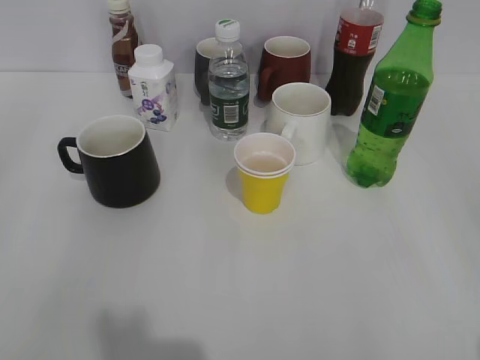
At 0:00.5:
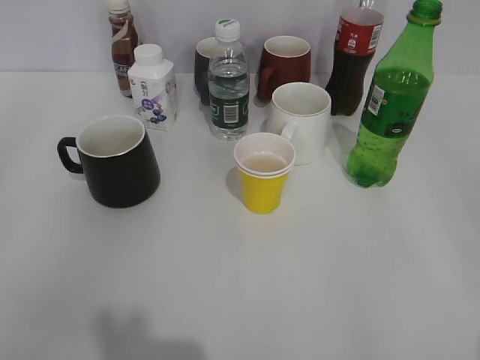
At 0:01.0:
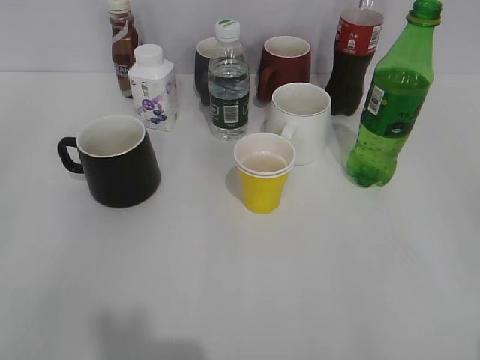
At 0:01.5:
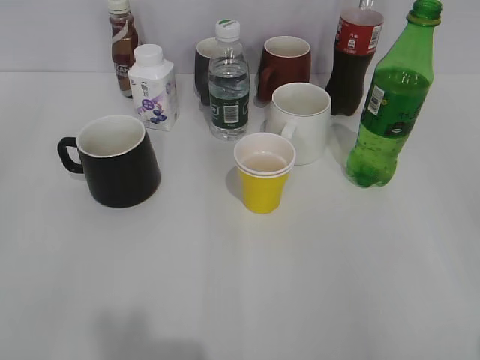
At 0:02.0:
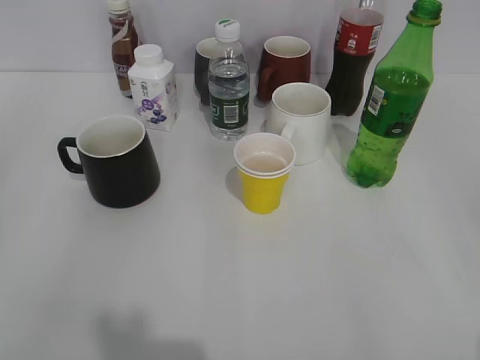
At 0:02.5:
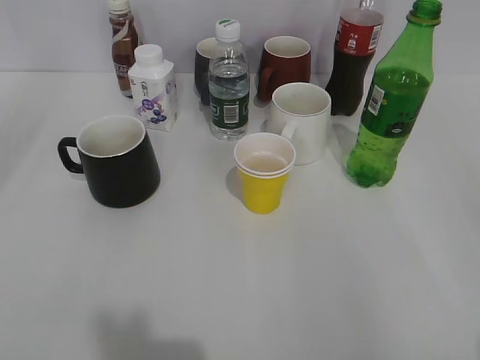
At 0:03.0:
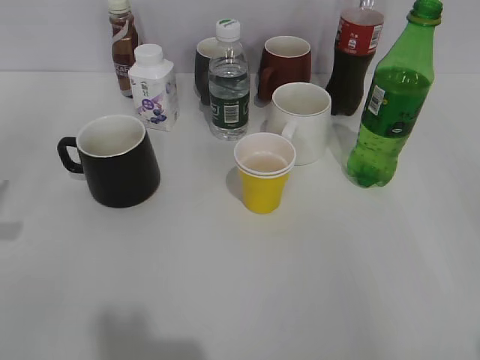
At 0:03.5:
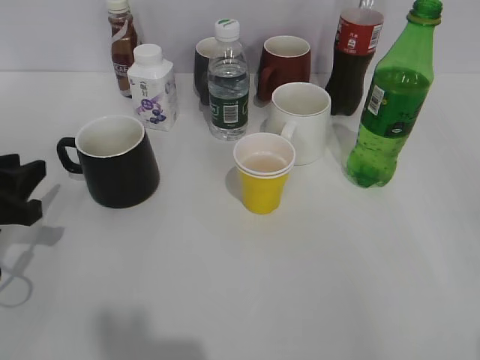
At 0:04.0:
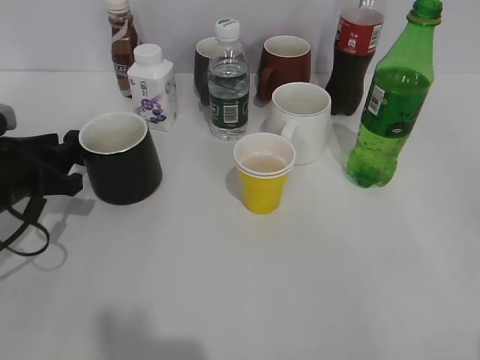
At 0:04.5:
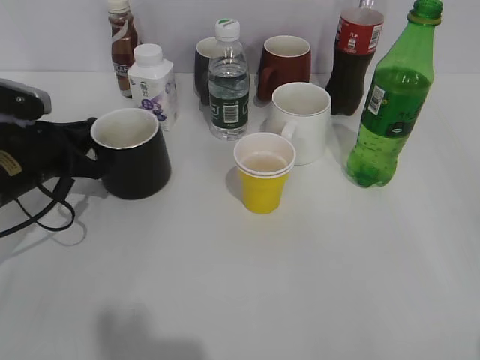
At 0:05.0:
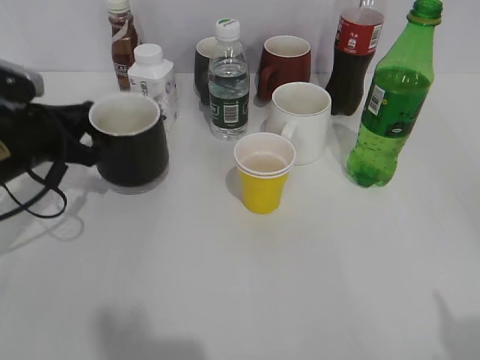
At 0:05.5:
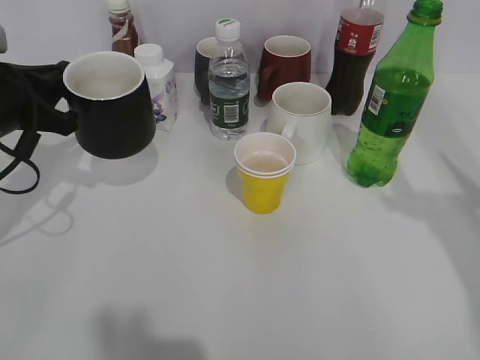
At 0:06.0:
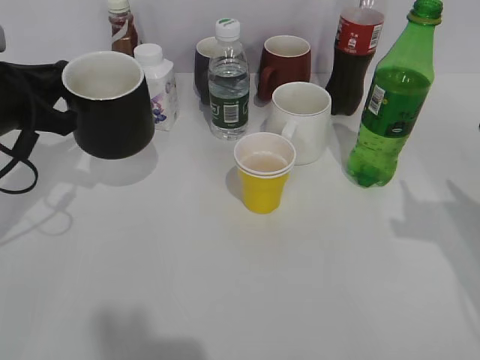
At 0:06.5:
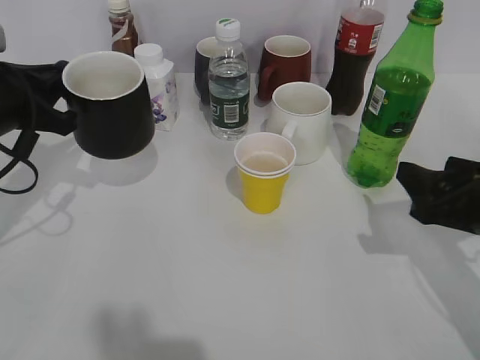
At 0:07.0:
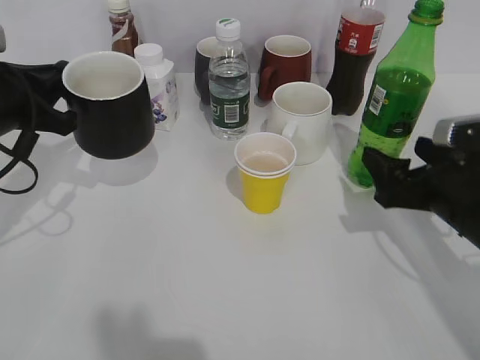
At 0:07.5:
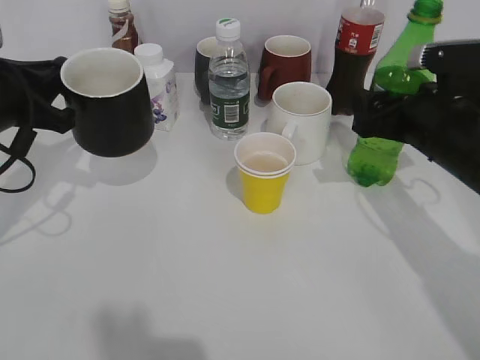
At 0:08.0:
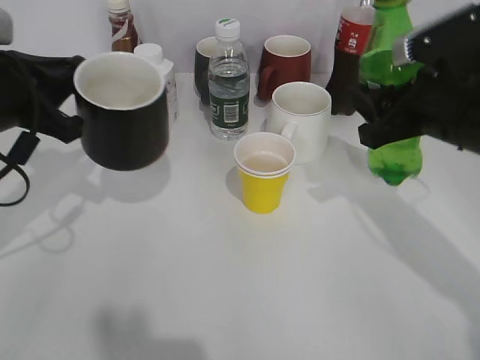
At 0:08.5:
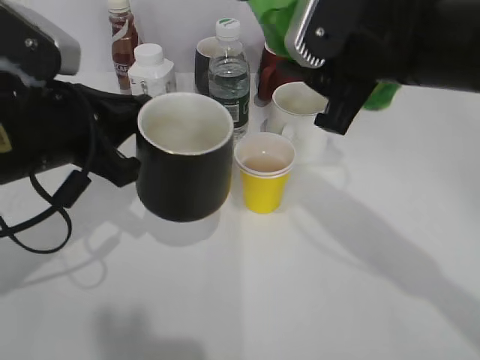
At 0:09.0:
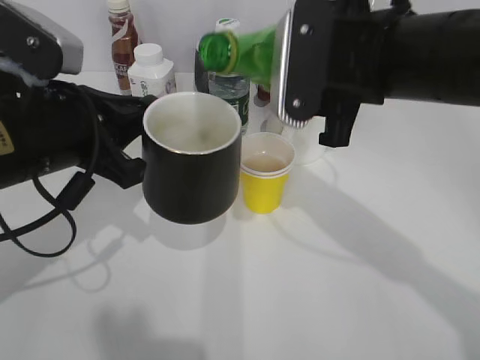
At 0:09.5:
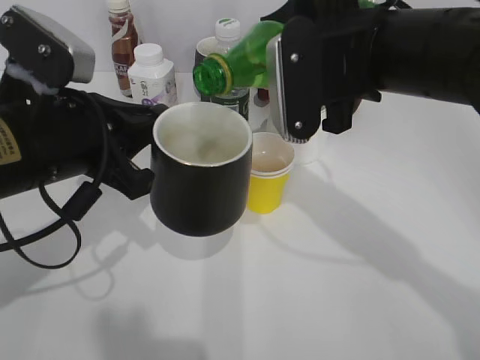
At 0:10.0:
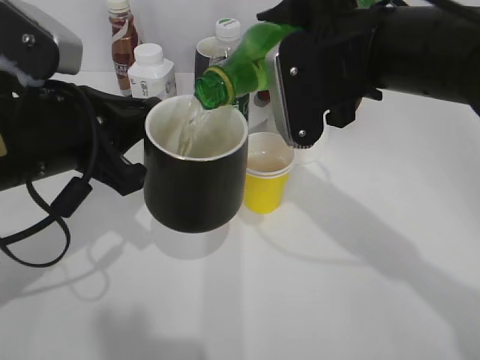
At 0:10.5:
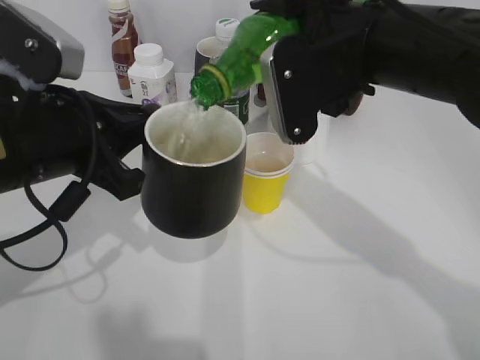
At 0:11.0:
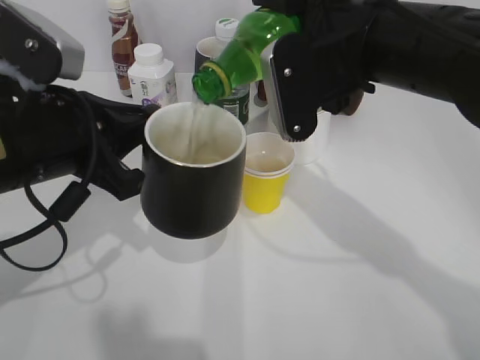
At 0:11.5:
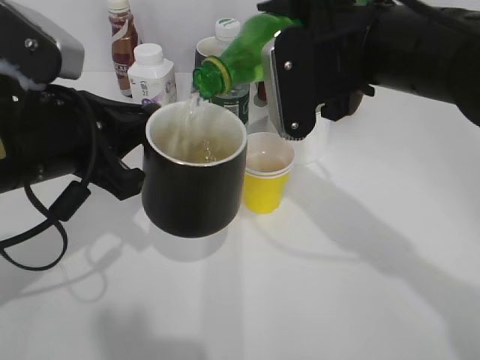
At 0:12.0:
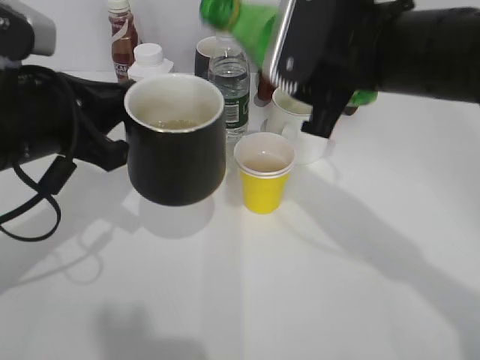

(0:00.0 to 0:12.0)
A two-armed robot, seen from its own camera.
Step, 0:02.0 - 0:04.5: Grasp the black cup with left gripper.
Step, 0:05.0 - 0:05.5: Lift the black cup with left gripper.
Step, 0:06.0 - 0:07.5: Grasp the bottle with sprite with right gripper.
Step, 0:08.0 - 0:11.5: Pour the sprite from bottle to cup with right gripper.
0:02.0 - 0:04.0: The left gripper travels forward and downward by about 30 cm.
0:04.0 - 0:06.0: The left gripper heads upward, covering approximately 10 cm, and closes its fingers.
0:06.0 - 0:08.0: The right gripper heads forward and to the left, covering some 15 cm, and closes.
0:08.0 - 0:10.0: The right gripper moves to the left and upward, roughly 10 cm; the left gripper heads to the right and backward, covering roughly 10 cm.

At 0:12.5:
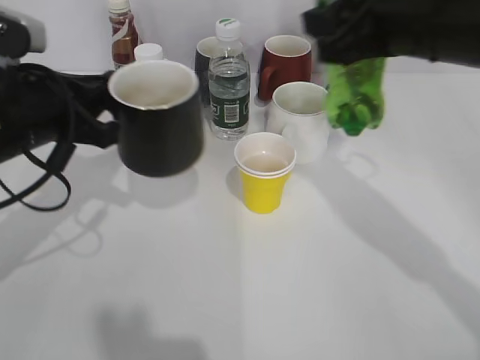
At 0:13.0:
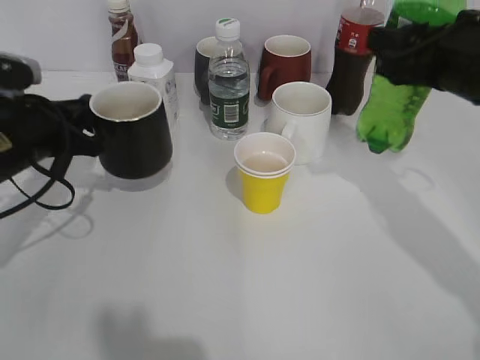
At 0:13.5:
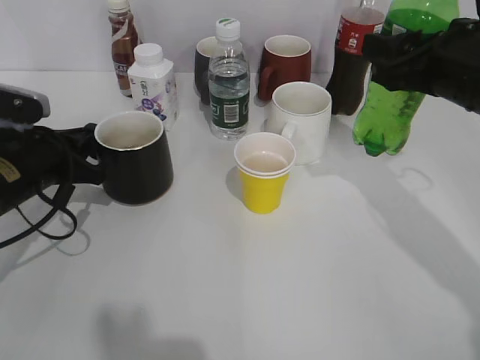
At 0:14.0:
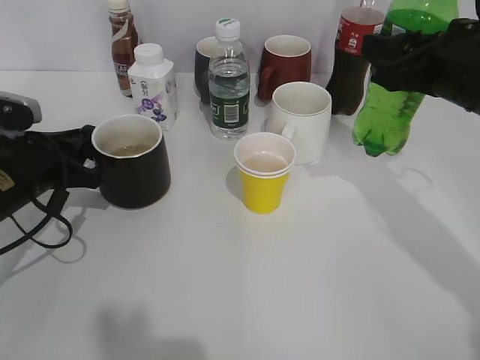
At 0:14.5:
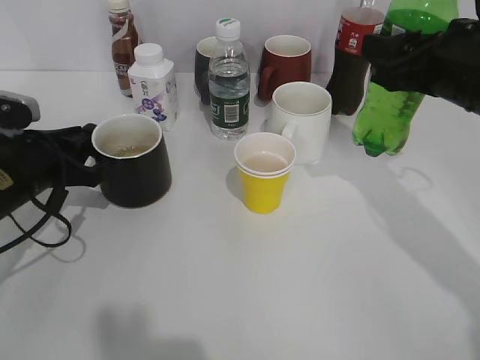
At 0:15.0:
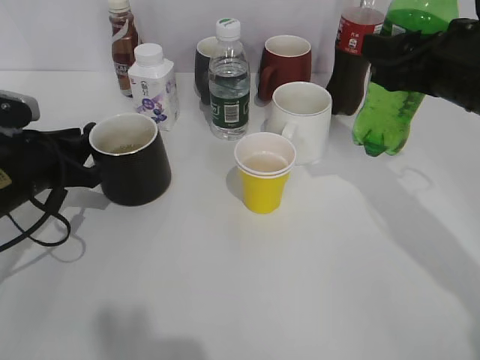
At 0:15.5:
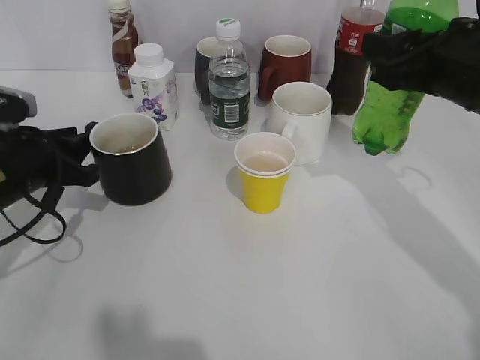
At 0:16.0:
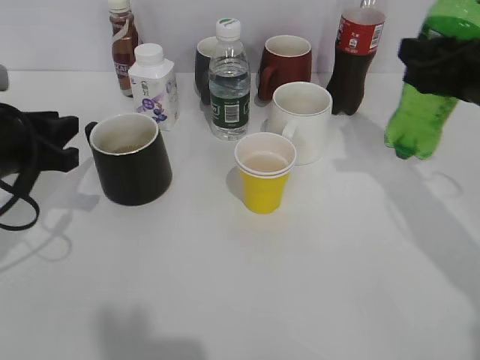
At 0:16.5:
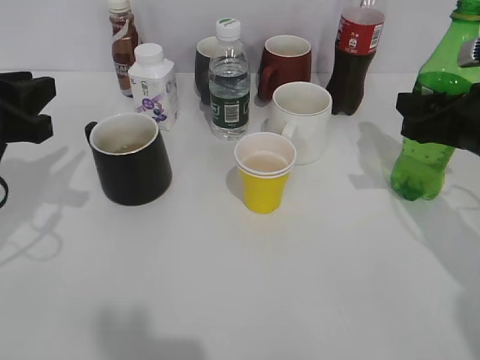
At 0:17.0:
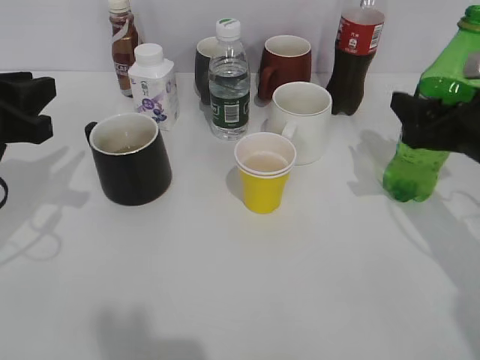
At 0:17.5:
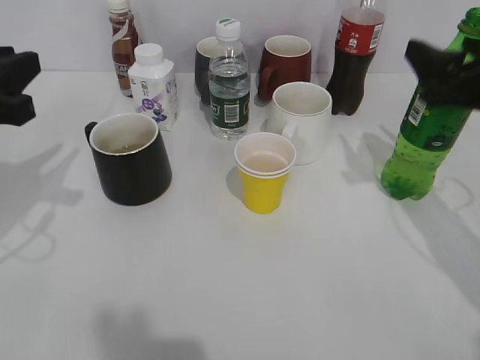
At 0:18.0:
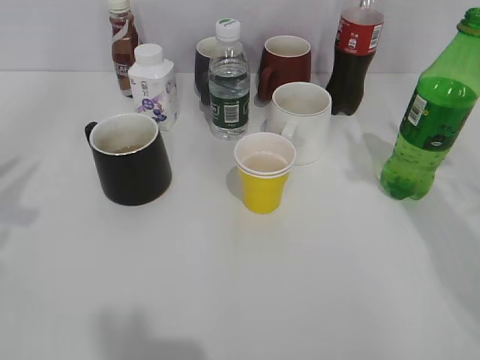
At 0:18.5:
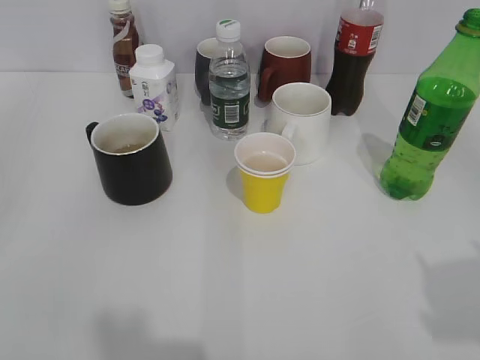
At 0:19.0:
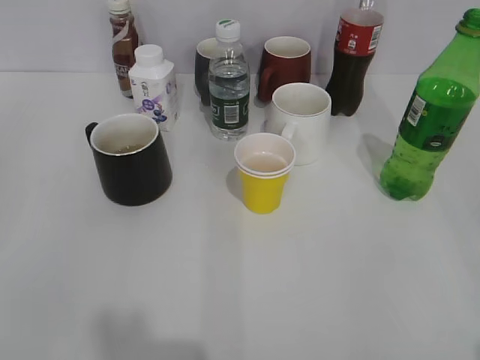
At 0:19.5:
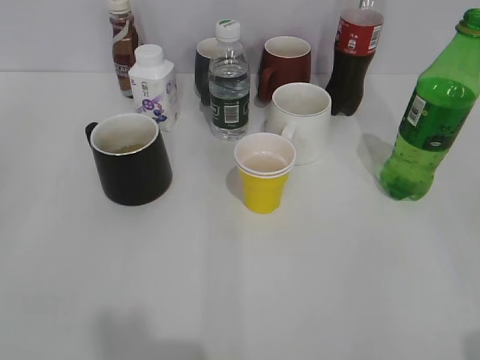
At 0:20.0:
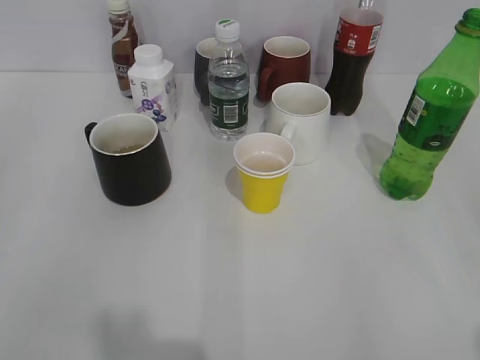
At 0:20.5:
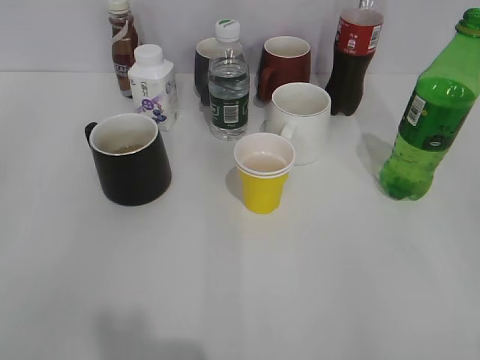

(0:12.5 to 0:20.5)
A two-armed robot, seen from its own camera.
Step, 0:12.5 - 0:15.0: Place the black cup on the table with left gripper.
Step, 0:15.5 - 0:17.0: Place the sprite bottle on the table with right gripper.
0:12.5 - 0:14.5: The right gripper heads to the right and downward, covering approximately 10 cm; the left gripper travels downward by approximately 10 cm.
0:14.5 - 0:16.5: The right gripper travels downward by roughly 5 cm, while the left gripper heads upward, covering approximately 10 cm.
0:16.5 - 0:18.5: The right gripper moves backward and upward, roughly 30 cm, and opens; the left gripper shifts about 25 cm backward, and opens its fingers.

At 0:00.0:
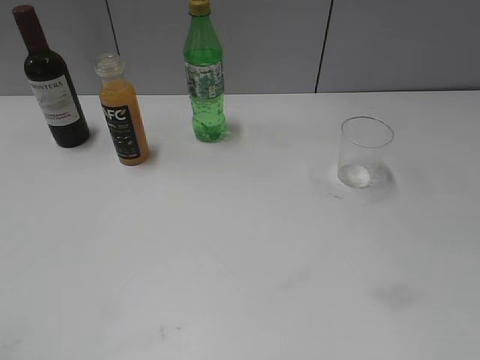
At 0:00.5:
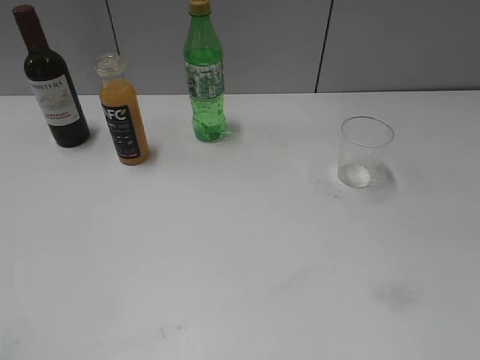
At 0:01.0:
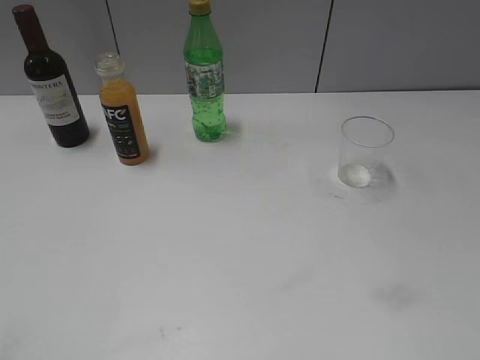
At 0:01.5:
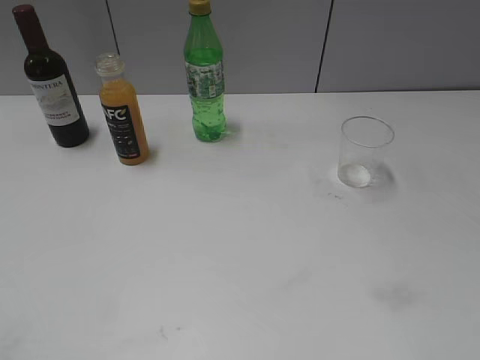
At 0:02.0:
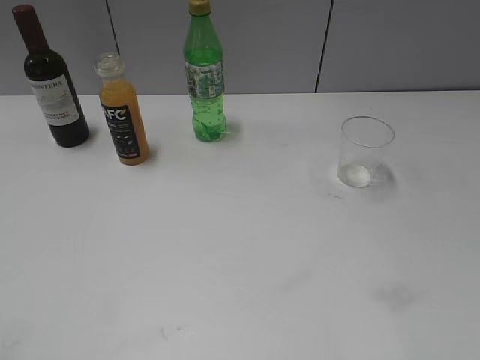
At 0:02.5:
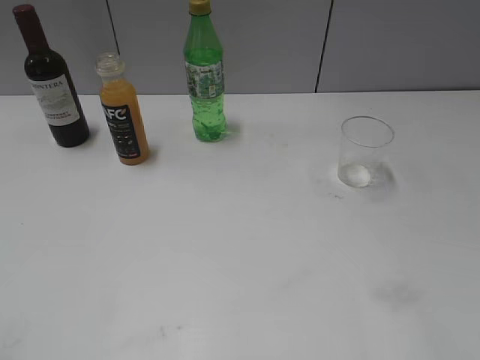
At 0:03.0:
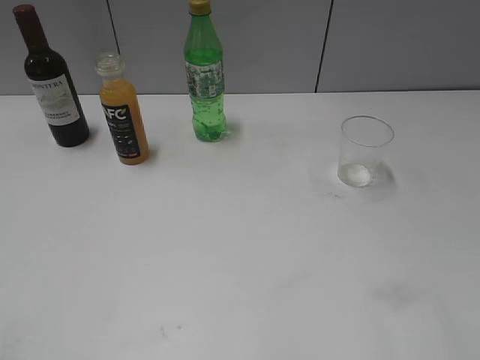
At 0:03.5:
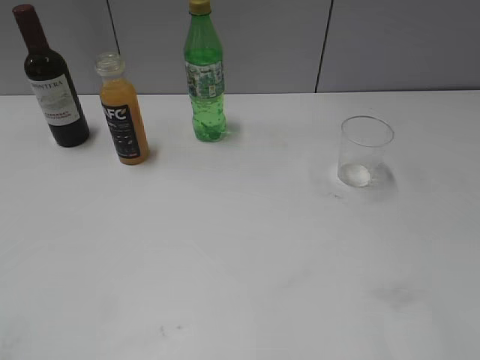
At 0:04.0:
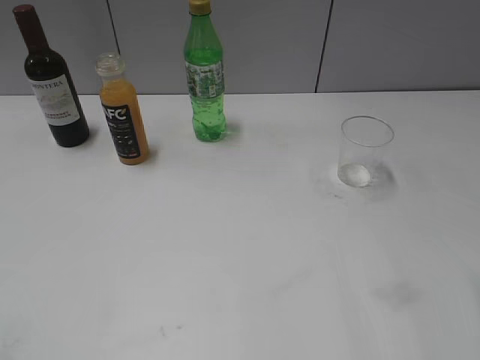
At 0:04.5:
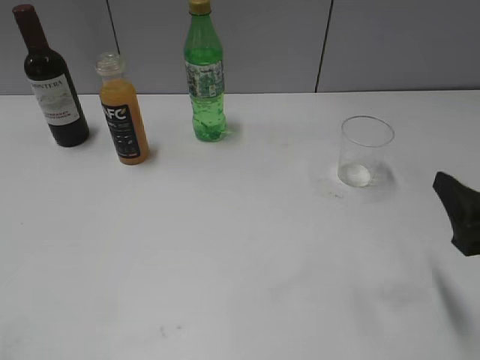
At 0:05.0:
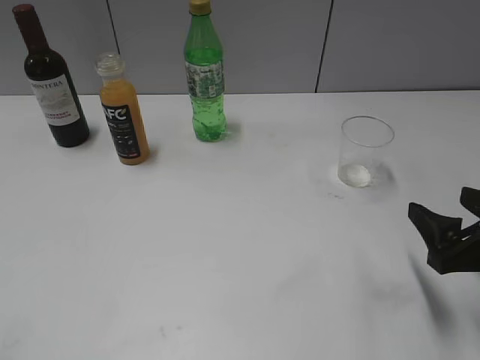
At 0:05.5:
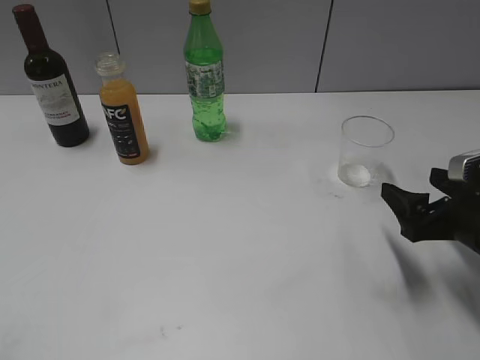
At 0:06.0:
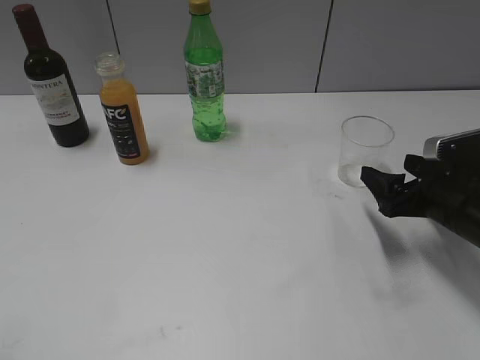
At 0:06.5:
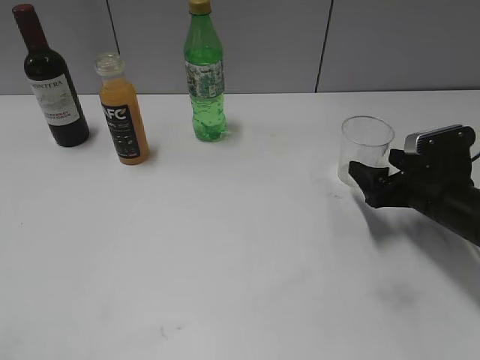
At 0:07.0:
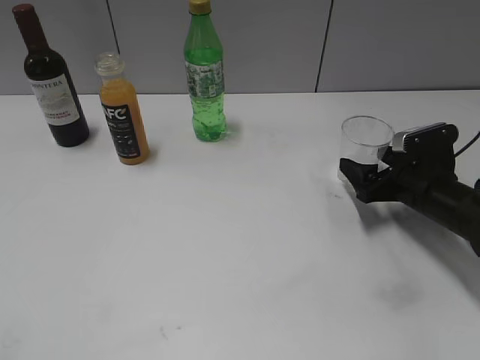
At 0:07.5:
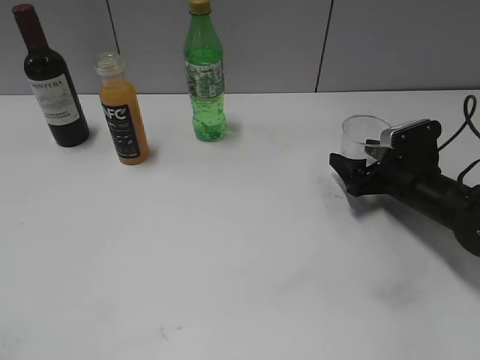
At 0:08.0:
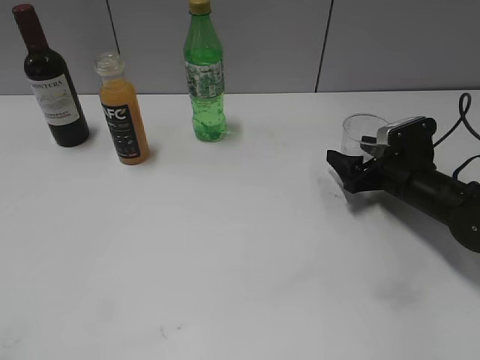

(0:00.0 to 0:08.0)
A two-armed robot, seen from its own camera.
0:04.0 - 0:06.0: The right gripper is displaced forward and downward by about 20 cm.
0:06.0 - 0:08.0: The right gripper heads forward and downward, covering roughly 10 cm.
